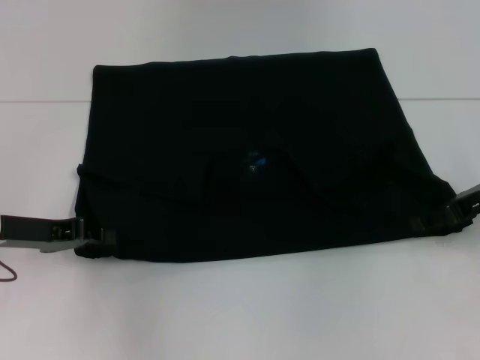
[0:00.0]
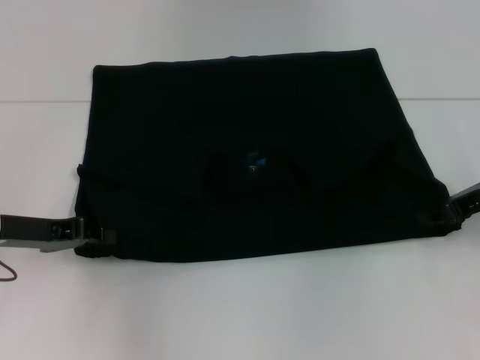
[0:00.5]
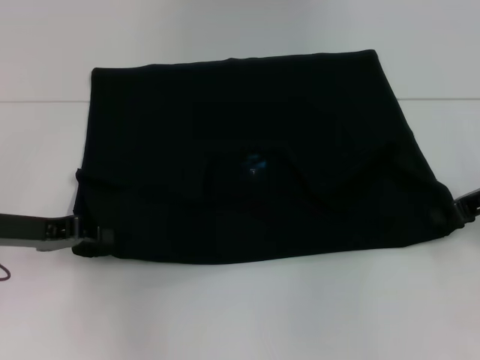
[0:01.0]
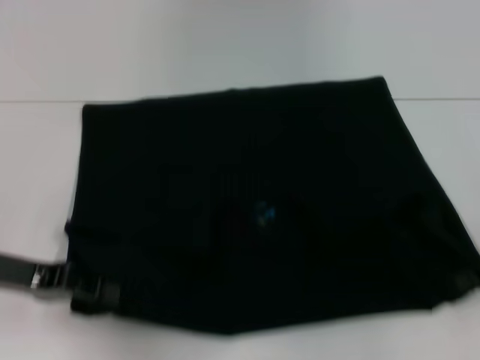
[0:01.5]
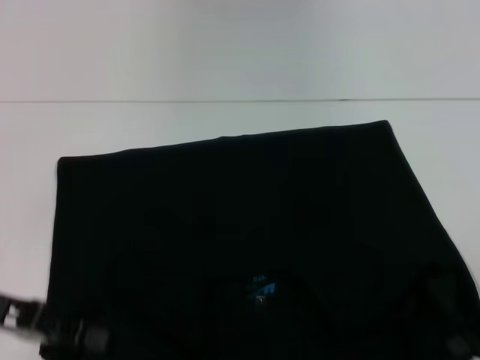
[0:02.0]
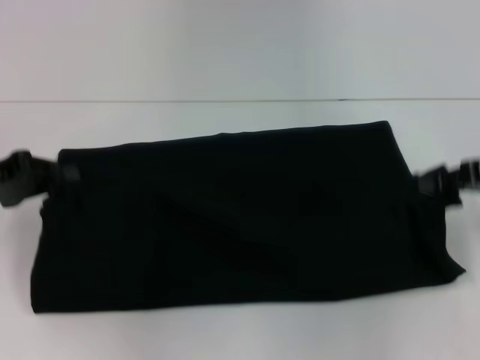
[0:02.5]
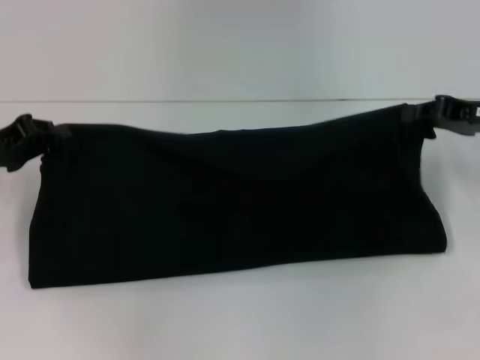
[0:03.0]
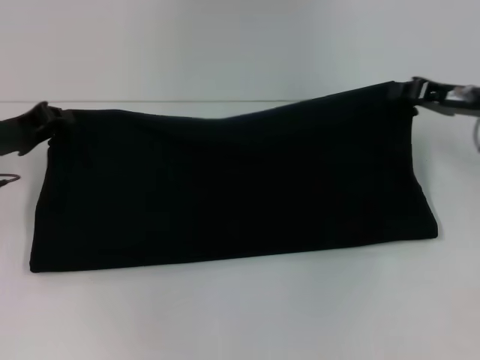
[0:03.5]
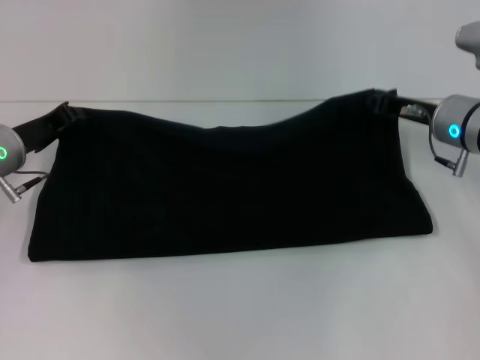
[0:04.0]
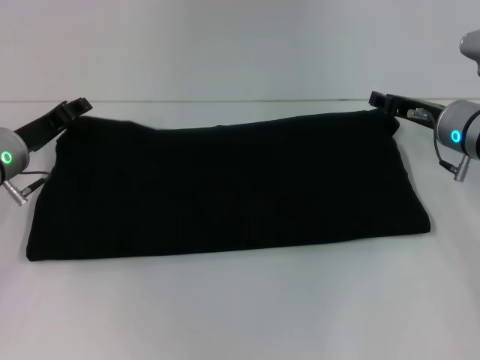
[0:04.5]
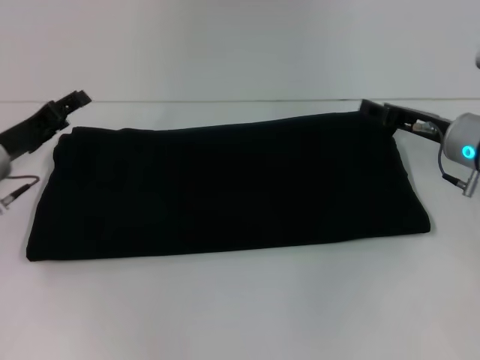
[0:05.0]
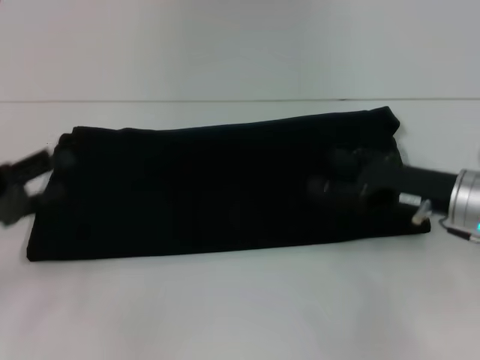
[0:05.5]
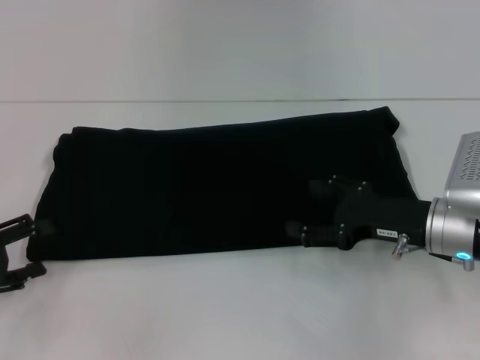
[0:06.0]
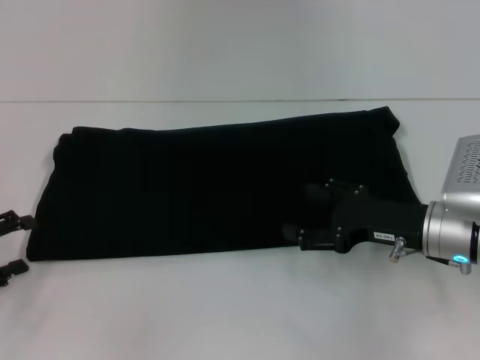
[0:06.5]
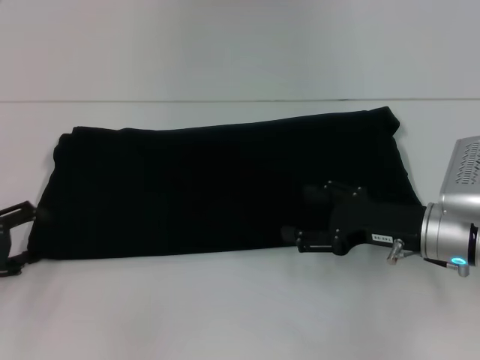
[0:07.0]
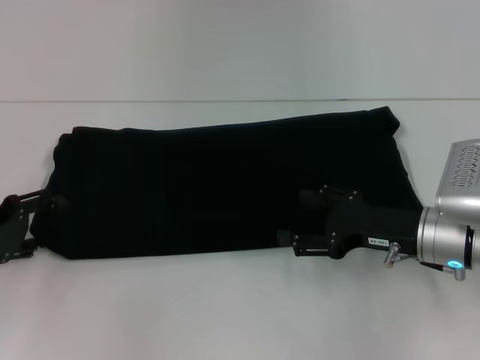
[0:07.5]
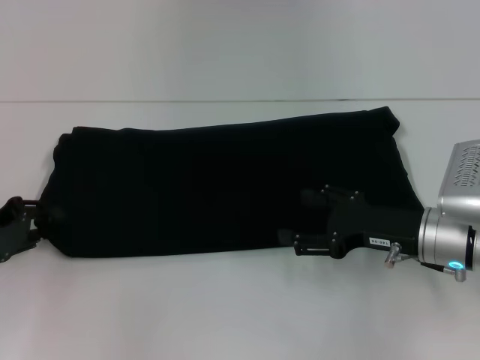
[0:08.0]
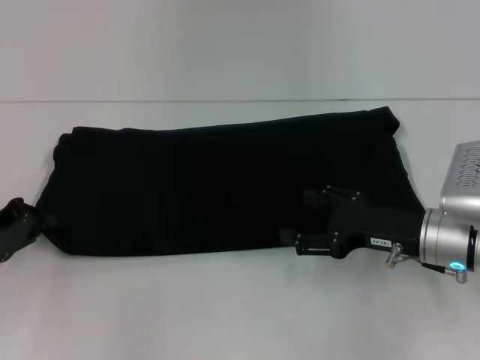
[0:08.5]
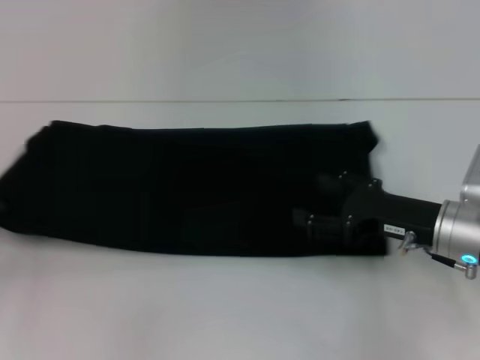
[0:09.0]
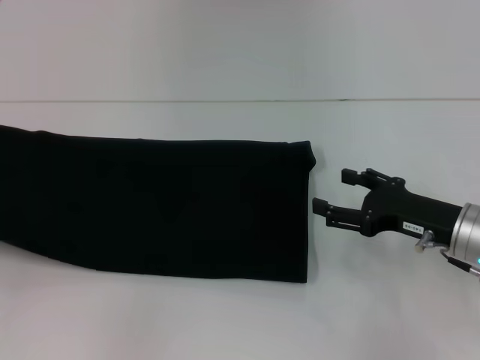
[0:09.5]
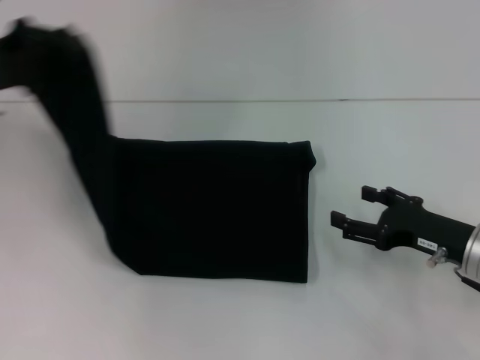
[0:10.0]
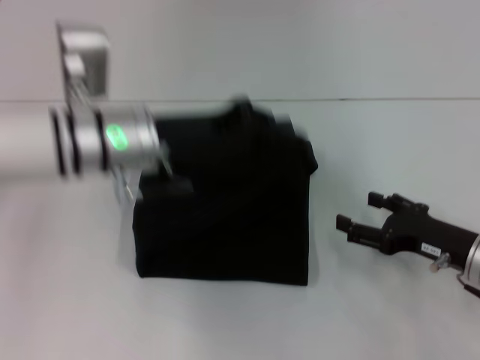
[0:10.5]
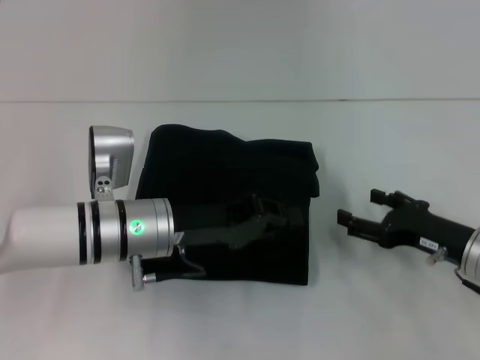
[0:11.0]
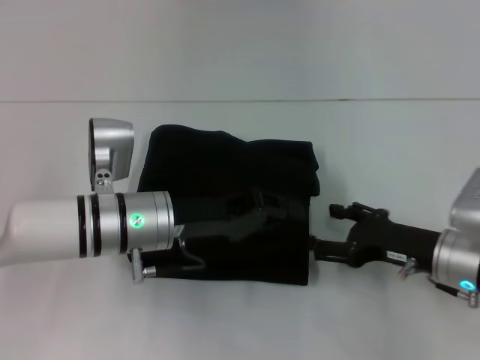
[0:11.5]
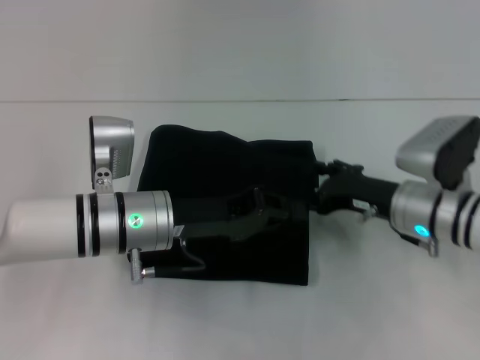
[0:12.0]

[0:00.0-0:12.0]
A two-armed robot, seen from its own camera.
Step, 0:02.0 to 0:04.5: Fold the clothes with your right hand.
0:00.0 to 0:02.0: Both grippers move backward, some 5 cm. The right gripper closes its fingers.
0:02.0 to 0:04.0: The left gripper shifts about 15 cm forward; the right gripper is displaced forward and to the left by about 15 cm.
0:04.0 to 0:06.0: The left gripper goes about 15 cm backward and to the left, and opens, while the right gripper goes some 10 cm backward, and opens up.
0:06.0 to 0:08.0: The left gripper goes approximately 5 cm forward, and closes up.
0:08.0 to 0:10.0: The right gripper shifts by roughly 5 cm; the left gripper heads upward and forward, covering some 15 cm, goes to the left and returns, some 10 cm each way, and closes up.
0:10.0 to 0:12.0: The left gripper goes some 20 cm to the right and downward. Meanwhile the right gripper shifts roughly 10 cm to the left and forward.

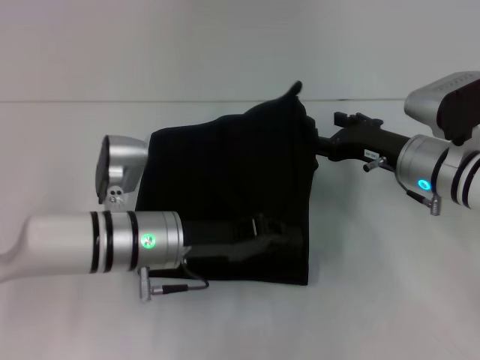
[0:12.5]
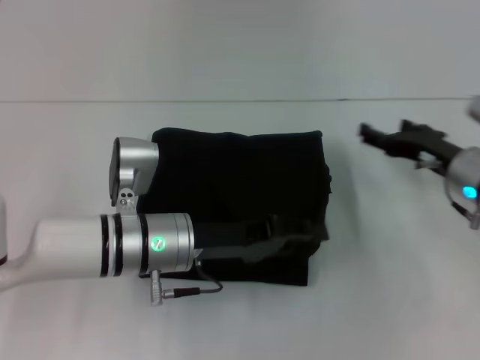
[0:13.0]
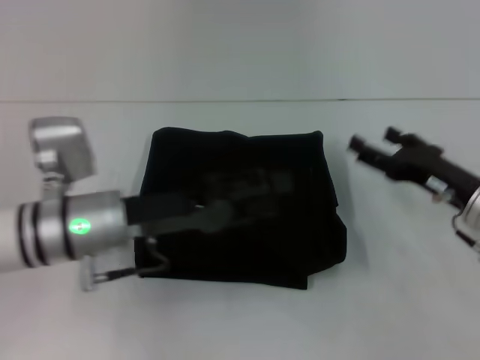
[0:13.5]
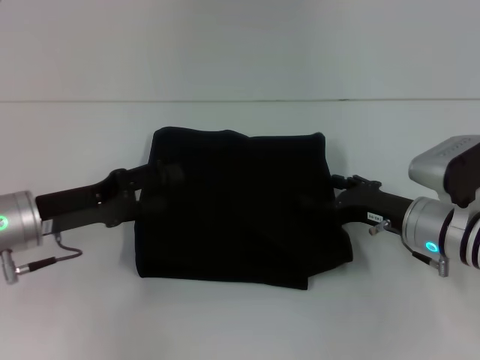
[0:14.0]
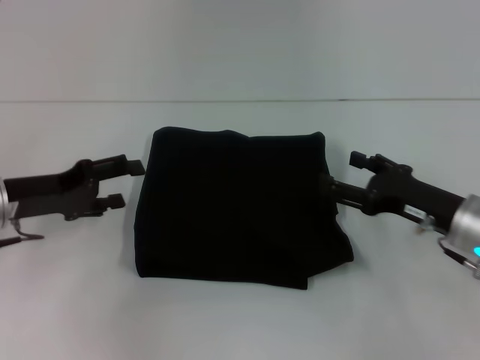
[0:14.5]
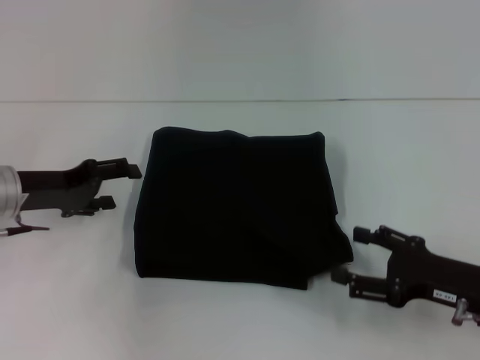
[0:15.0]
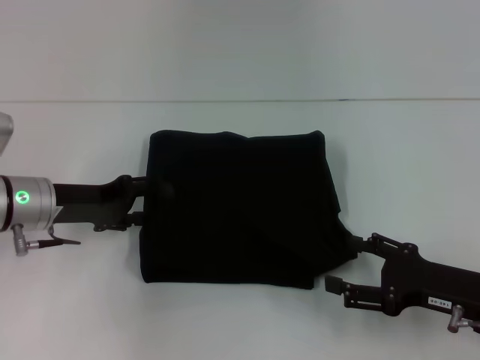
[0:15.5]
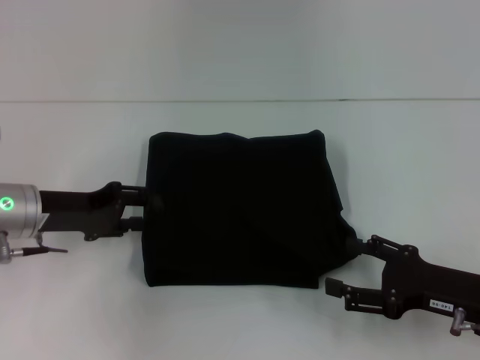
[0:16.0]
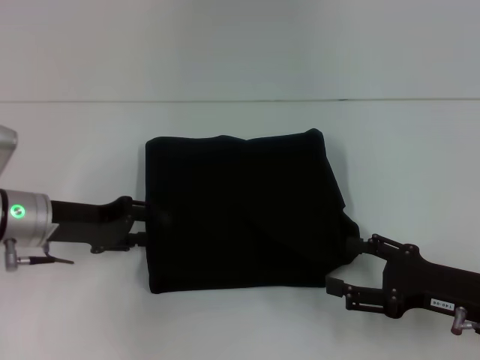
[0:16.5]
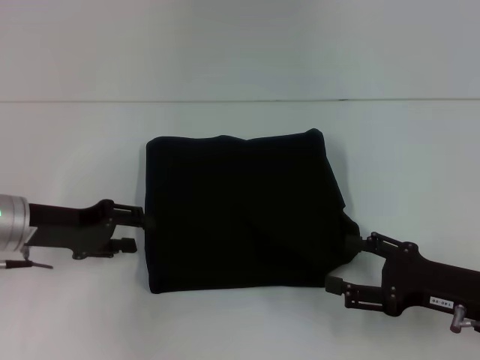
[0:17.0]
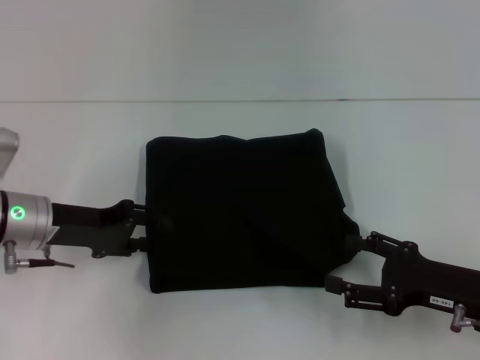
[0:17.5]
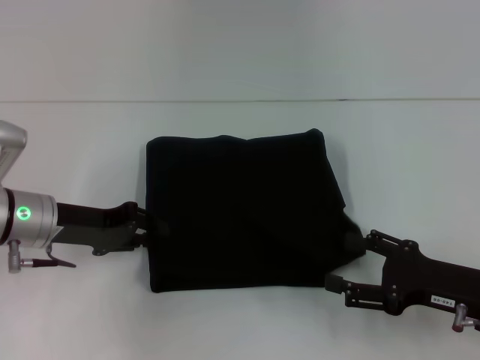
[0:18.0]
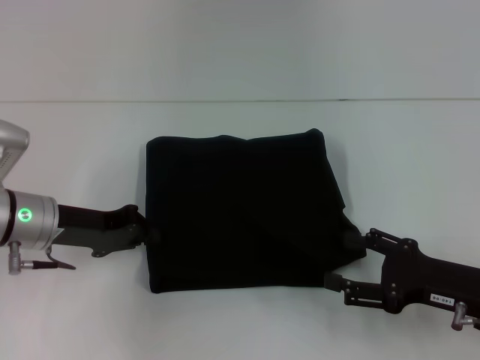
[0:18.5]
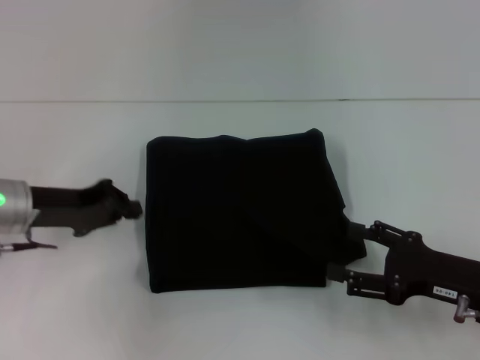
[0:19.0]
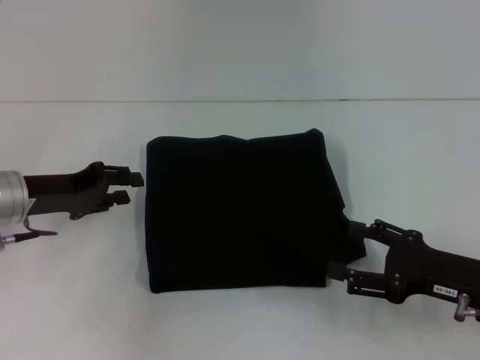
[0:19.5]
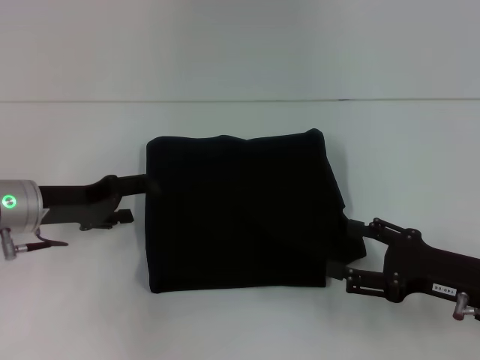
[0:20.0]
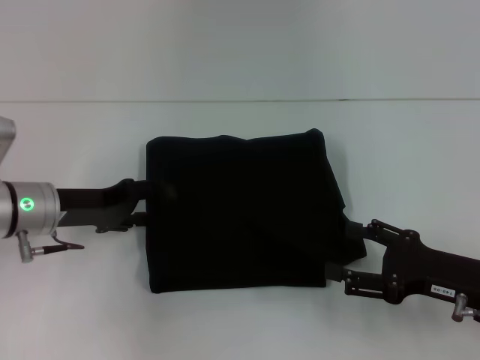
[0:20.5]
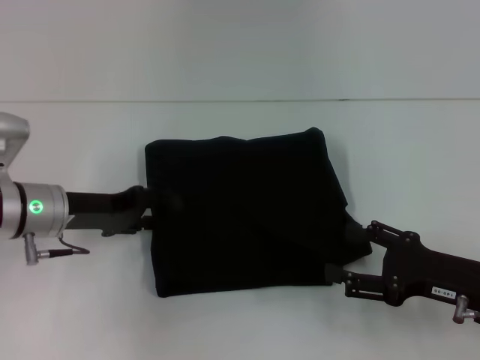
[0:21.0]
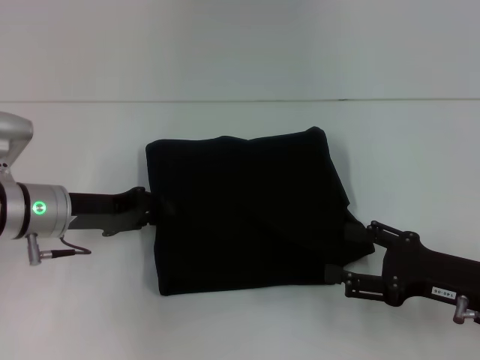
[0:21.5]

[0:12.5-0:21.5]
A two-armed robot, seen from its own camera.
0:12.5 to 0:14.5: The right gripper is displaced backward by roughly 5 cm; the left gripper goes about 15 cm to the left, and opens up.
0:14.5 to 0:17.0: The right gripper travels backward by roughly 5 cm.
0:17.0 to 0:19.5: The left gripper closes.
0:19.5 to 0:21.5: The left gripper opens and closes again.

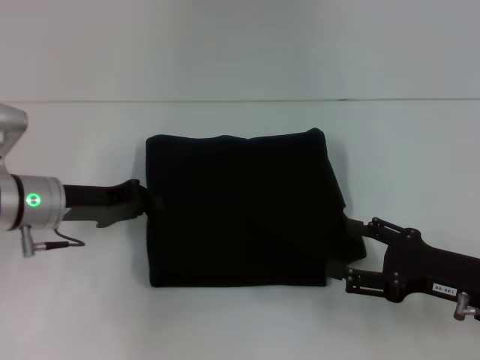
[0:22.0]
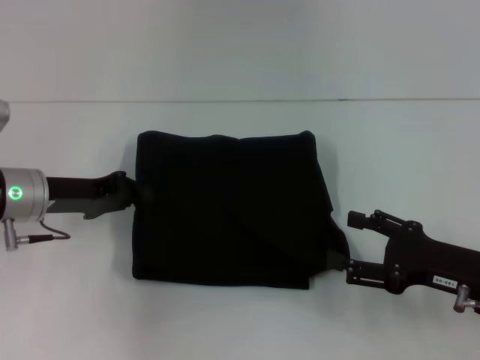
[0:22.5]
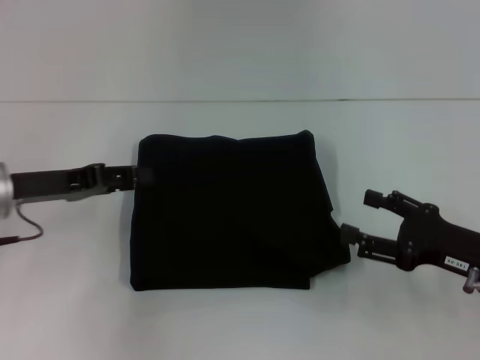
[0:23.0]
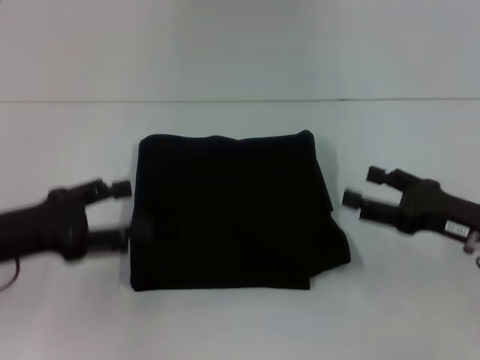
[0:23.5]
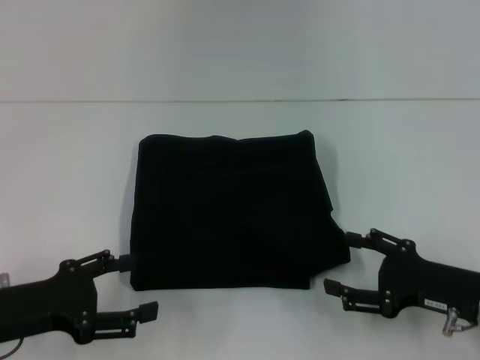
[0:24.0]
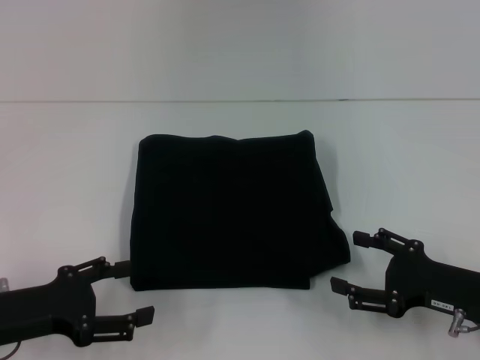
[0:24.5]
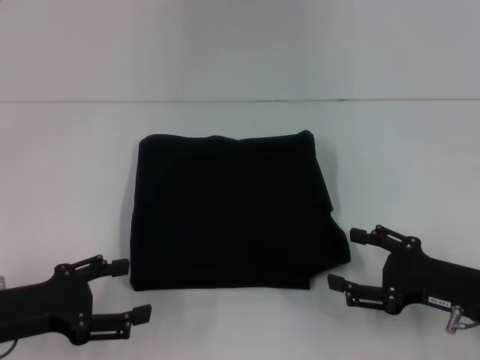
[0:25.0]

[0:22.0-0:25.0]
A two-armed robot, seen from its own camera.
0:22.0 to 0:23.5: The left gripper travels backward by some 10 cm, and opens its fingers.
0:23.5 to 0:25.0: The left gripper changes place by approximately 5 cm. The right gripper shifts by approximately 5 cm.
